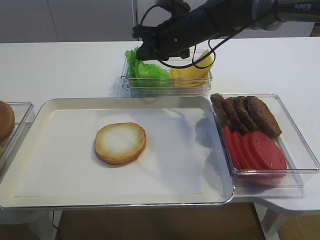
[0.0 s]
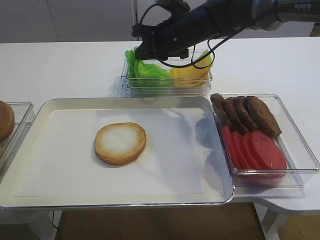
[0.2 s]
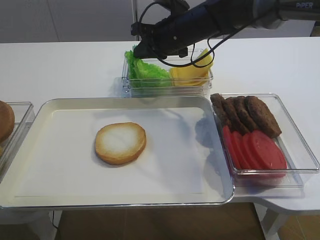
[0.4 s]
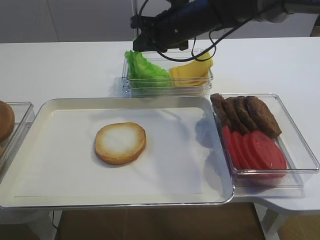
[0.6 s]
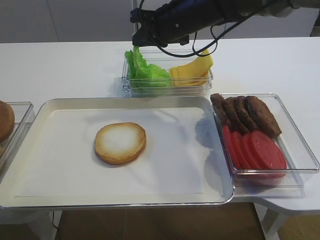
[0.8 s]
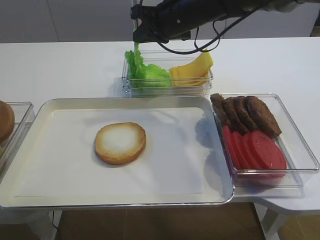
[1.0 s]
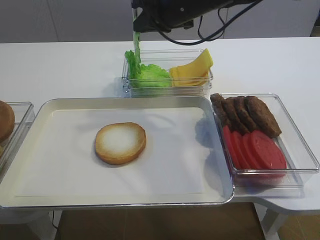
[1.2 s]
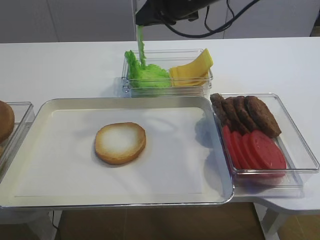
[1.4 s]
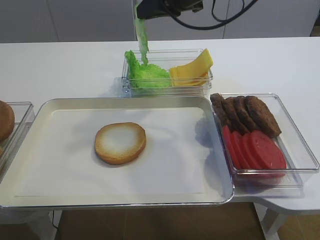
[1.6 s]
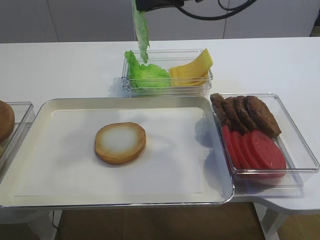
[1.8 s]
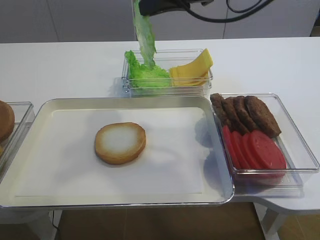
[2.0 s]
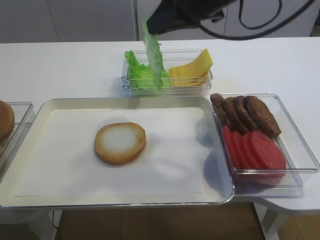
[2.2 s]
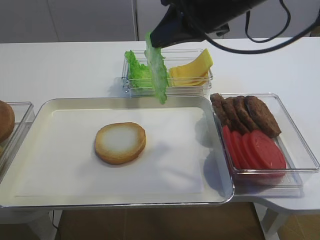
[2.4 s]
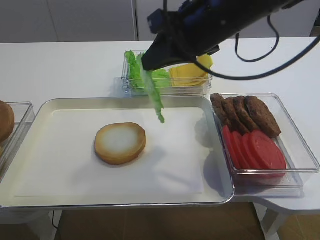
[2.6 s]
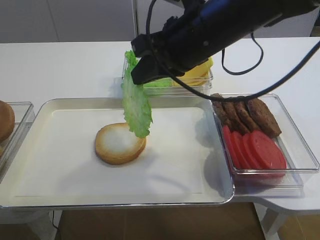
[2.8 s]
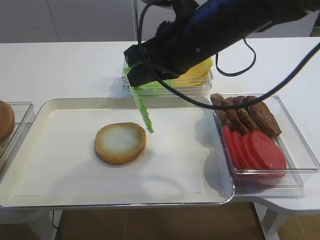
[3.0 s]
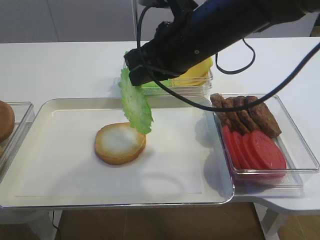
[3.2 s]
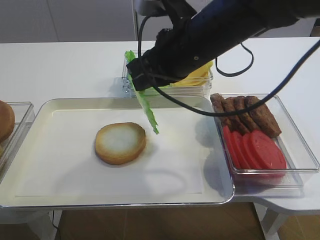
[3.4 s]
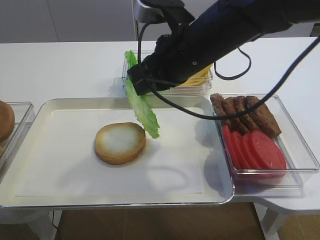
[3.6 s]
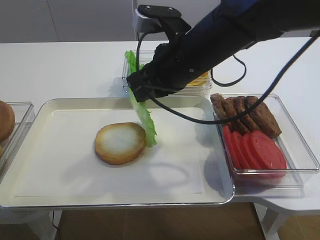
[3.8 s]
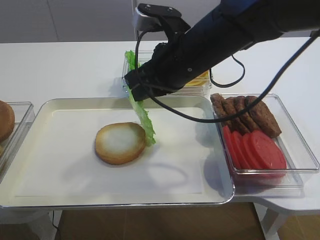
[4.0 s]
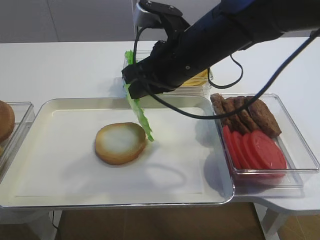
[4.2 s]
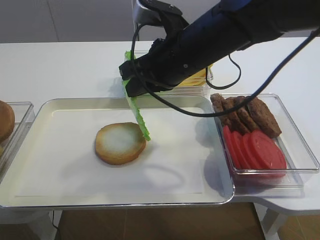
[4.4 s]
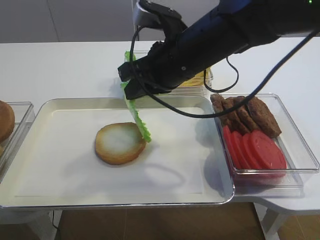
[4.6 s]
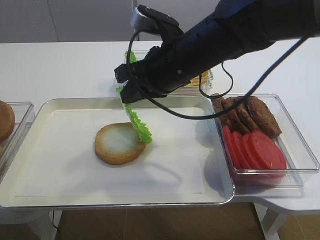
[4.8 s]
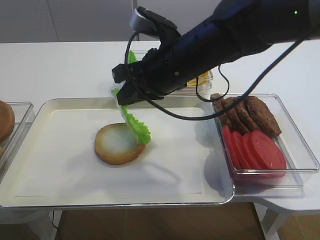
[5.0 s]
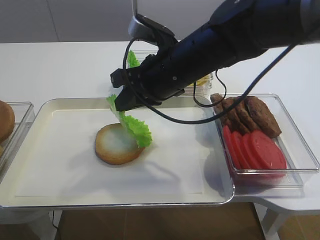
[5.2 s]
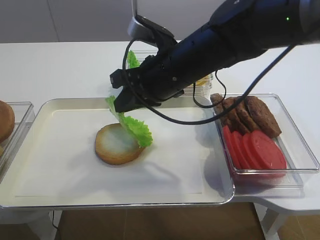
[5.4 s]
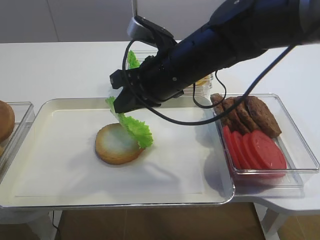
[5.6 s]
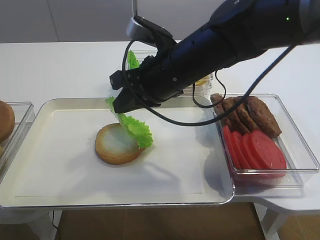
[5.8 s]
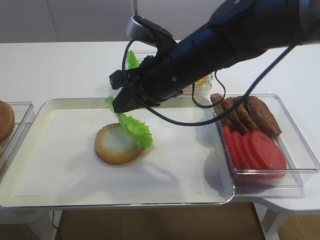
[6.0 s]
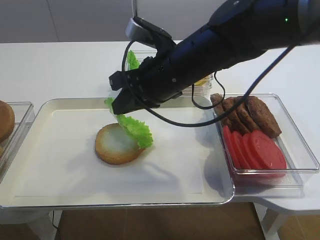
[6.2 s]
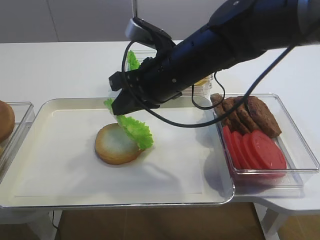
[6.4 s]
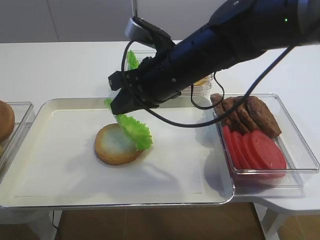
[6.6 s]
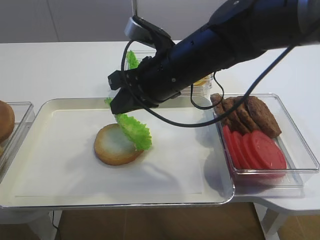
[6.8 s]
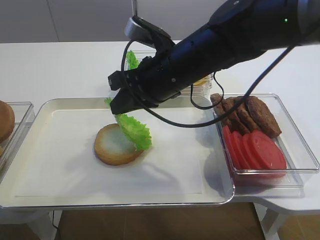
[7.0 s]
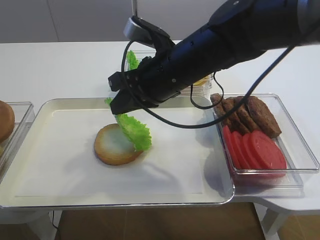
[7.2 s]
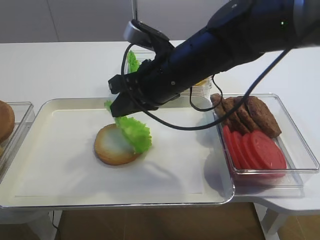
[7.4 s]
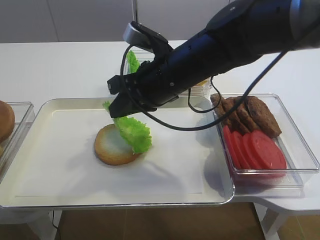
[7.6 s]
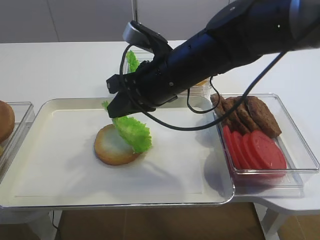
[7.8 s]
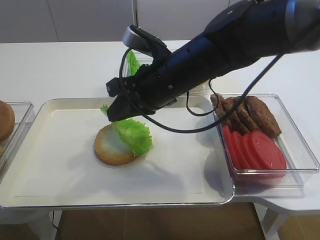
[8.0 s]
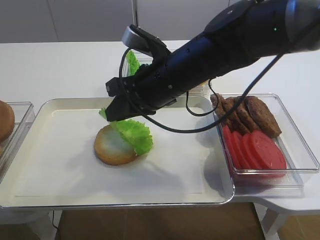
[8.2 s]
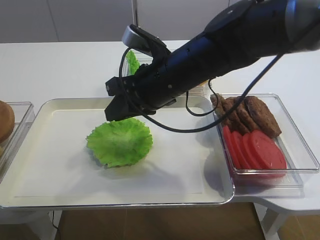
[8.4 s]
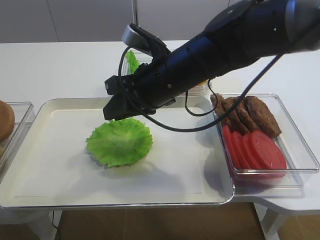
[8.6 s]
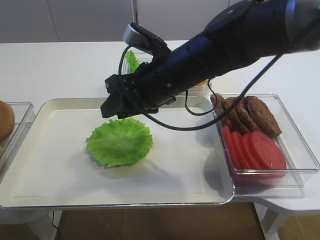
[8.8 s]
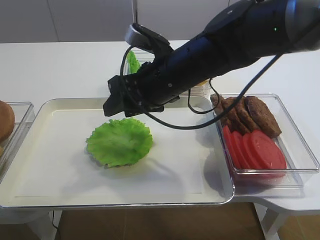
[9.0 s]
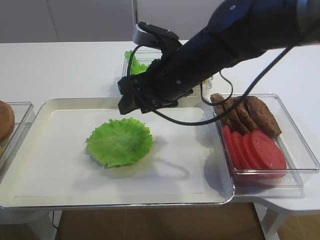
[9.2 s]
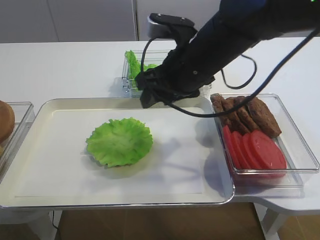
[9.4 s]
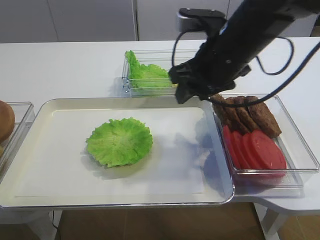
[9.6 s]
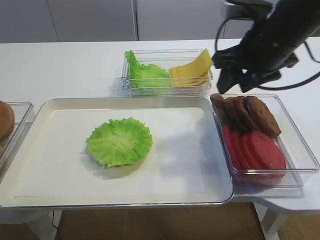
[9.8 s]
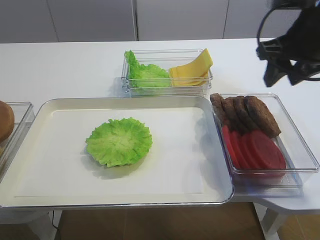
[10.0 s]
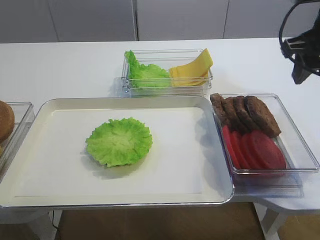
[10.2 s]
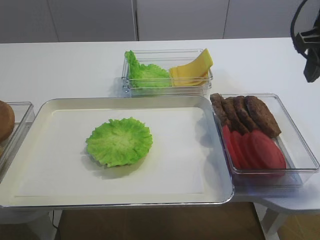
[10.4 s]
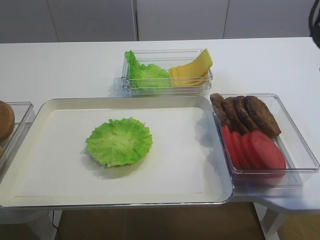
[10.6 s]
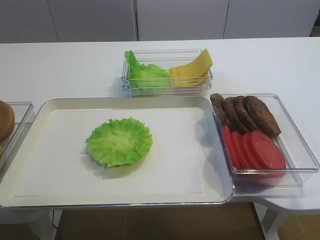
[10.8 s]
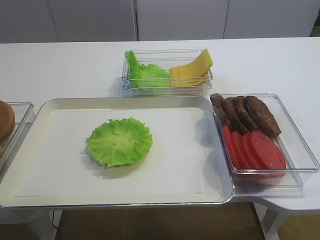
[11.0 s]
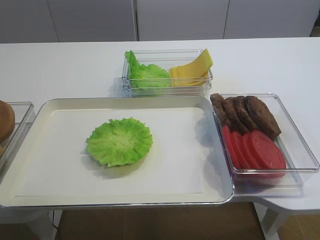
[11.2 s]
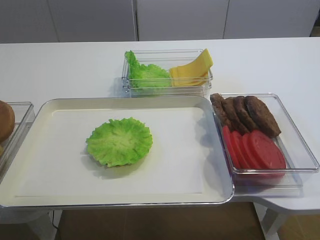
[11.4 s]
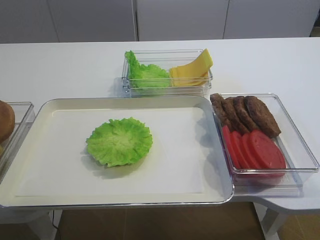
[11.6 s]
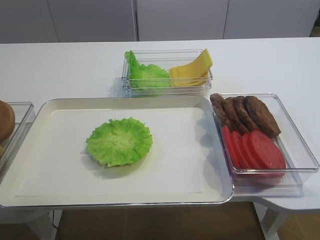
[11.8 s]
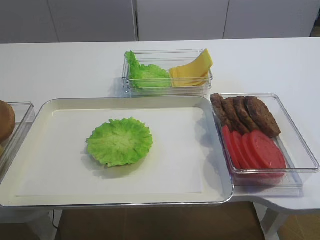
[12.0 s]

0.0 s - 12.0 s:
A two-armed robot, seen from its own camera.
Step, 1.8 s - 8.8 s: Place the lettuce leaf on the bread slice with the right gripper.
0.0 s - 1.6 s: The right gripper travels upward by about 10 cm.
1.6 s - 3.0 s: The right gripper shifts about 10 cm backward.
3.0 s - 6.0 s: The grippers move only a little.
6.0 s - 7.6 s: Both grippers stay about where they are.
7.6 s - 9.0 s: The right gripper opens up.
9.0 s - 10.4 s: The right gripper moves to the right and upward, about 25 cm.
10.4 s - 12.0 s: The right gripper moves backward, roughly 30 cm.
